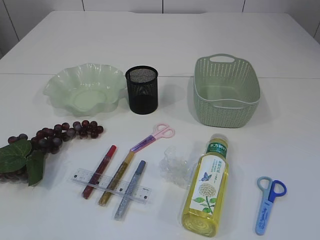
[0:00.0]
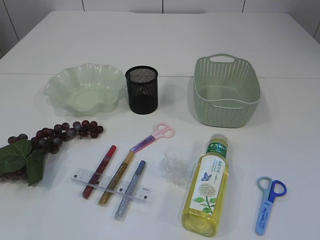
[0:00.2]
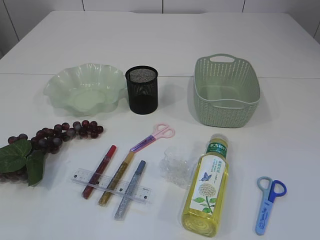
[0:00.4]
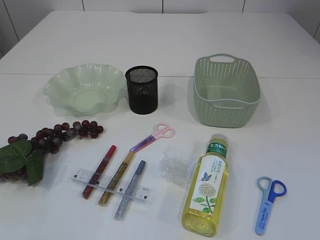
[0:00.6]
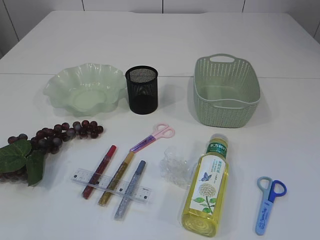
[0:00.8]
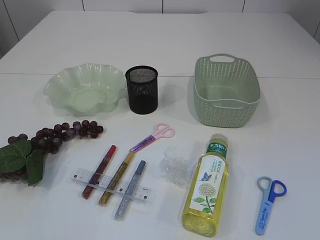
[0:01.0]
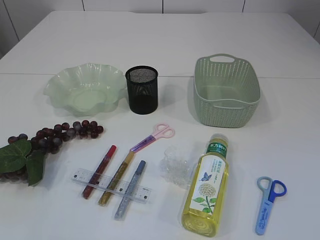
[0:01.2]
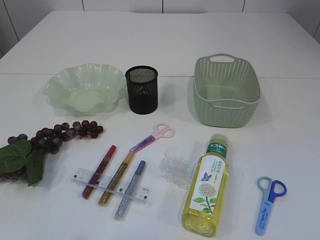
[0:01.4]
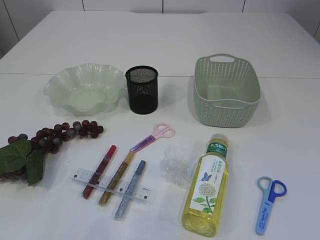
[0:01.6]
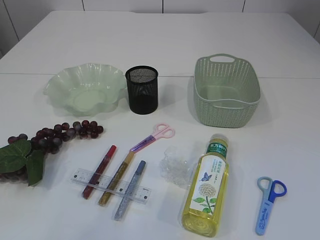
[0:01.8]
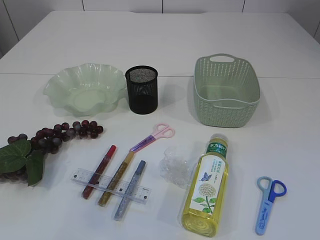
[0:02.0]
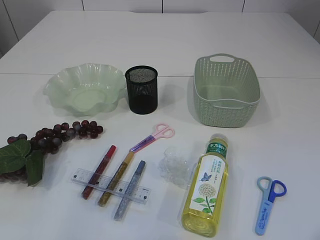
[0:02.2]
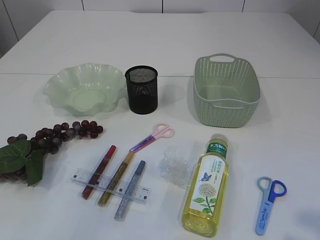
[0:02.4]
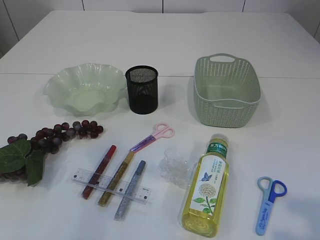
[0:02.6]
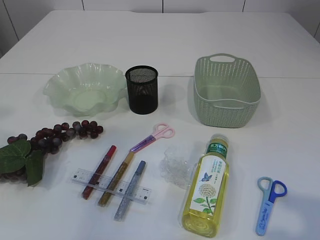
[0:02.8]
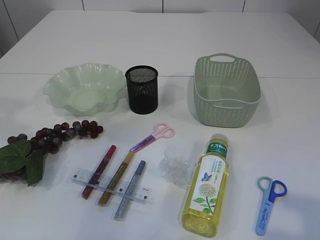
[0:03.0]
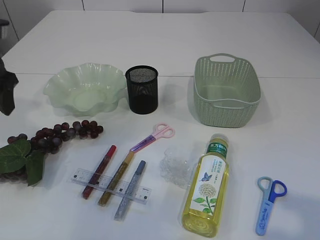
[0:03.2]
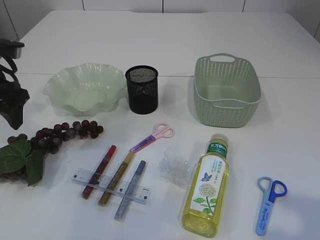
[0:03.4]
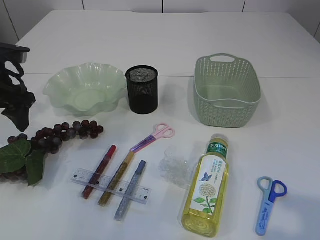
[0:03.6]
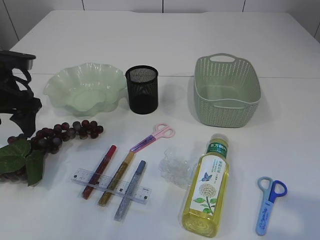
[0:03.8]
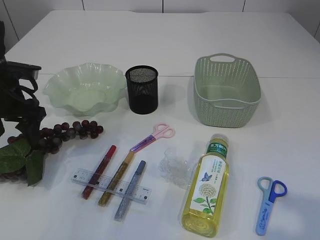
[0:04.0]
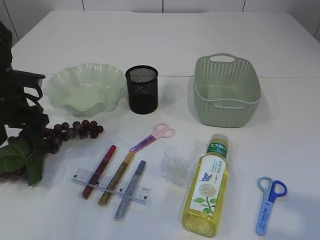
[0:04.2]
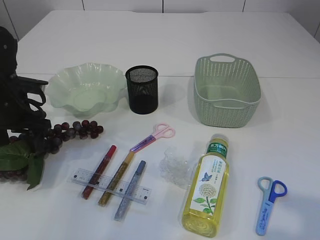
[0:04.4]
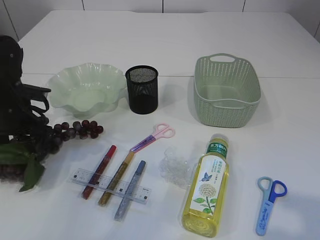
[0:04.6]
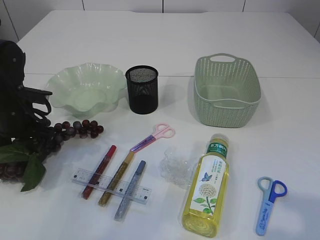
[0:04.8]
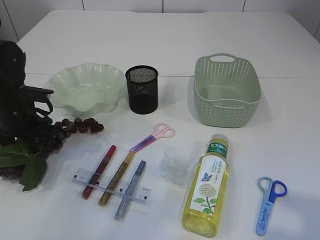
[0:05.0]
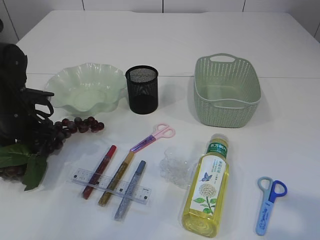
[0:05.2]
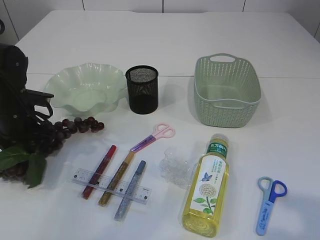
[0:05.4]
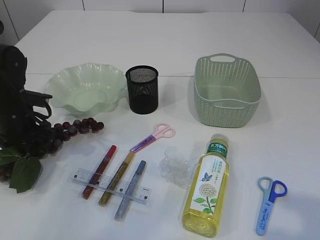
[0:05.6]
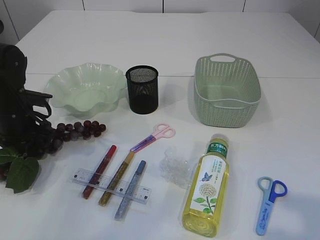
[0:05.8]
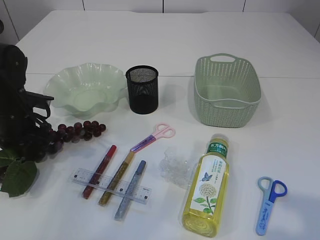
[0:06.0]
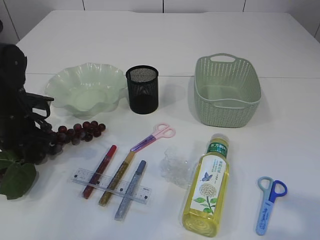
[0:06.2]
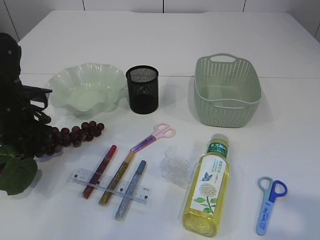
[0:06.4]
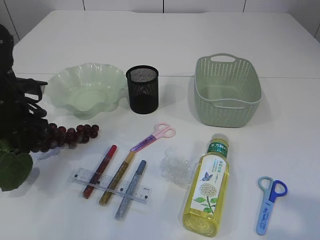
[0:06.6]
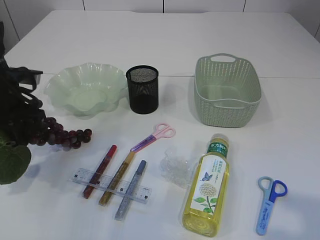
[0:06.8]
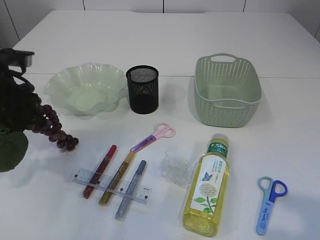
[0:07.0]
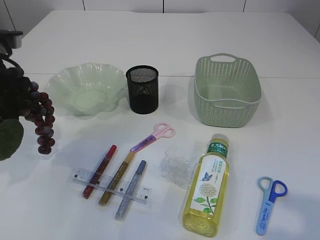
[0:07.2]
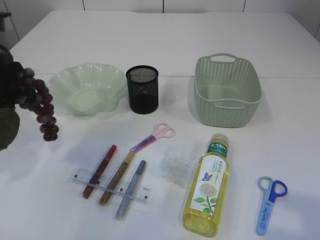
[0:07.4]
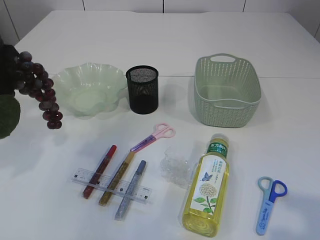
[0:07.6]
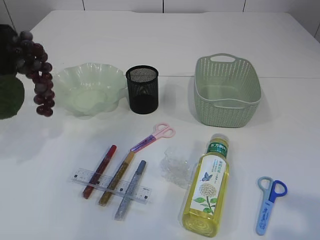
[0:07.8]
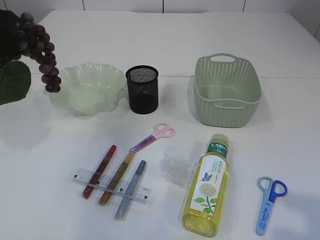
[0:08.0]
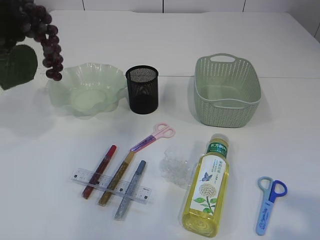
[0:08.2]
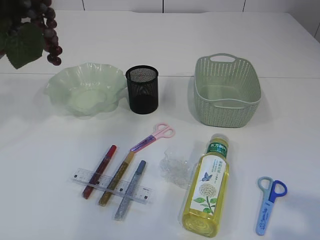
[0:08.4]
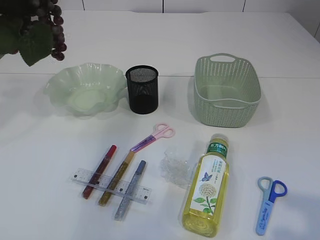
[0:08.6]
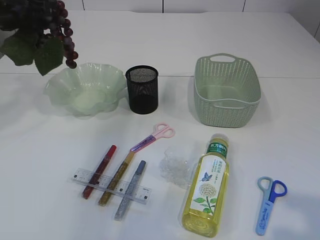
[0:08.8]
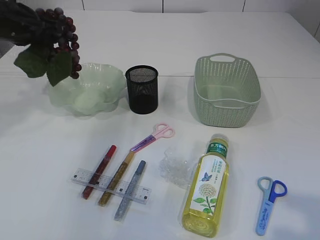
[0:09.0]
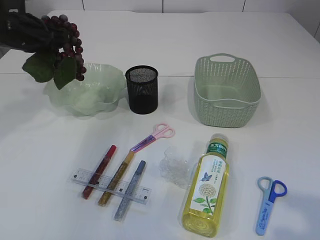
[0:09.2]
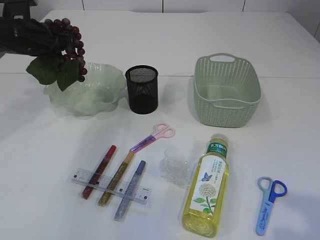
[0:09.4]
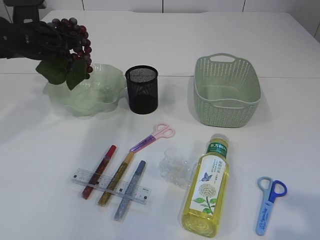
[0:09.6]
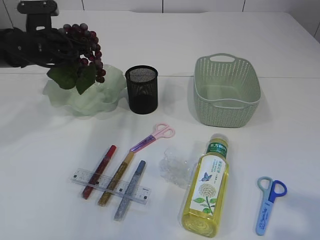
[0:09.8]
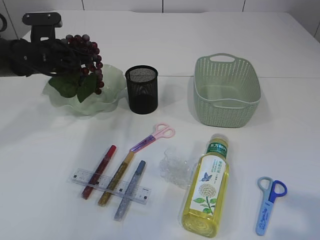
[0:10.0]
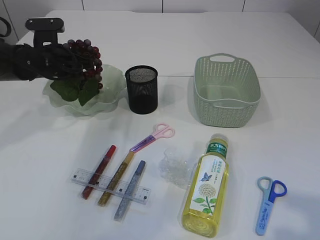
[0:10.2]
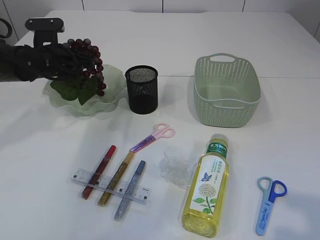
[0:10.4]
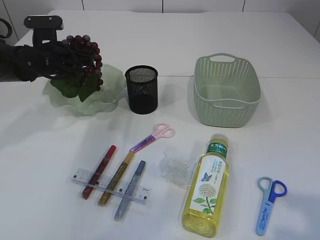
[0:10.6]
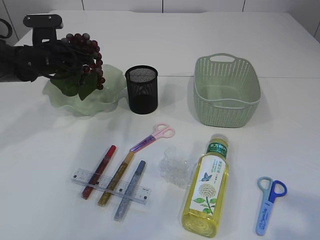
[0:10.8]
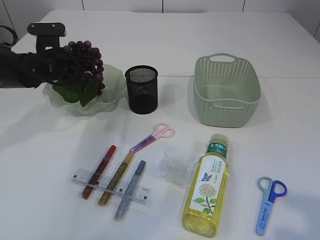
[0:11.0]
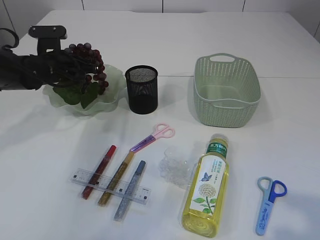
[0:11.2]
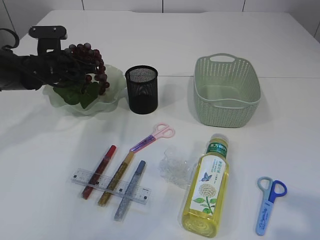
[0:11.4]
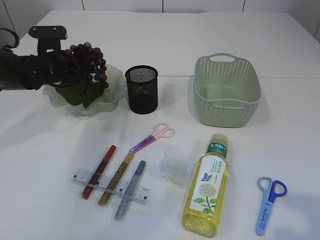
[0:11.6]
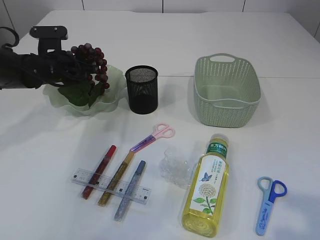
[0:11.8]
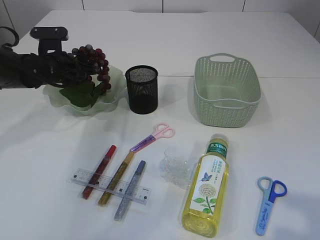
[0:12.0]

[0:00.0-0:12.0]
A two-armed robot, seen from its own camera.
Step, 0:00.0 to 0:07.4: Pick up the grapes.
0:01.6 to 0:03.0: The right gripper travels forward and upward by roughly 10 cm, while the left gripper shifts some 30 cm forward.
0:03.0 to 0:04.4: The left gripper travels downward and forward by roughly 20 cm.
0:04.4 to 0:06.0: The left gripper closes up.
0:06.0 to 0:07.6: The left gripper moves upward, approximately 20 cm.
0:07.6 to 0:09.0: The left gripper shifts some 10 cm forward.
0:09.0 to 0:10.4: The left gripper shifts roughly 10 cm downward.
0:10.4 to 0:12.0: The left gripper opens its fingers.

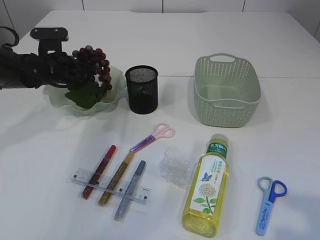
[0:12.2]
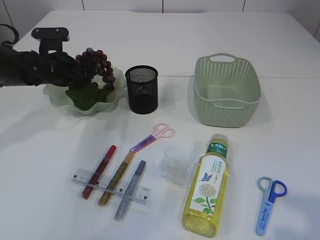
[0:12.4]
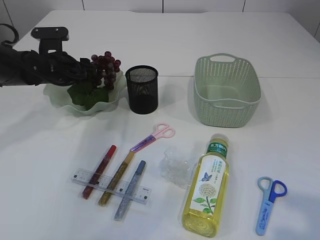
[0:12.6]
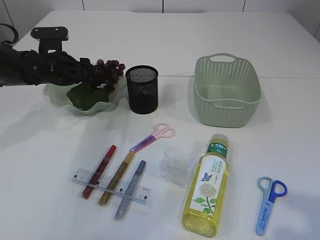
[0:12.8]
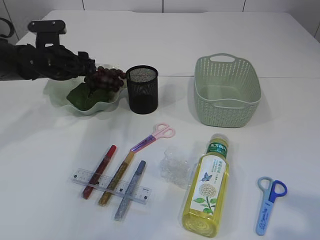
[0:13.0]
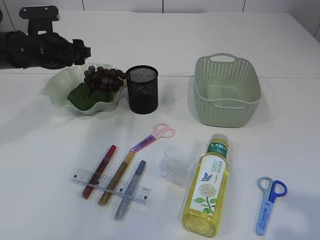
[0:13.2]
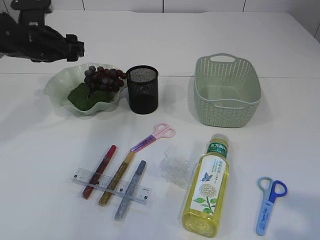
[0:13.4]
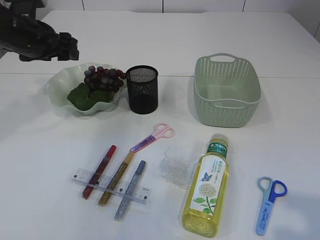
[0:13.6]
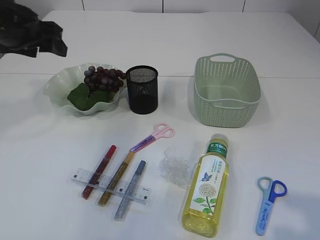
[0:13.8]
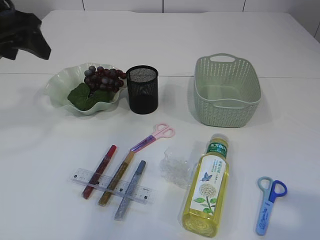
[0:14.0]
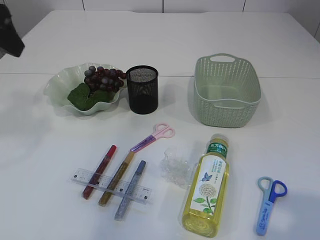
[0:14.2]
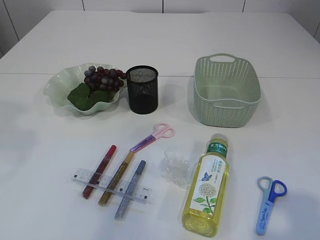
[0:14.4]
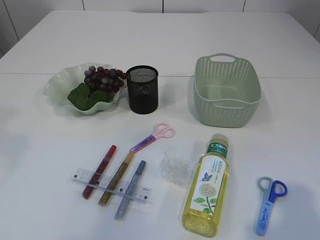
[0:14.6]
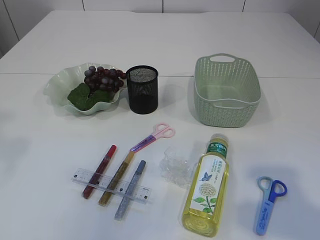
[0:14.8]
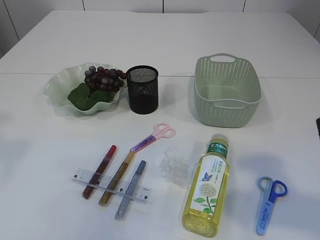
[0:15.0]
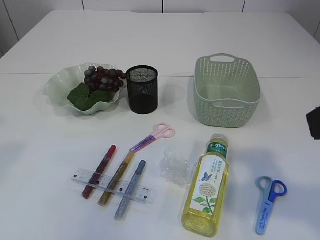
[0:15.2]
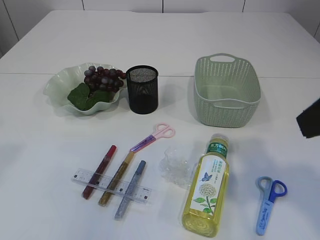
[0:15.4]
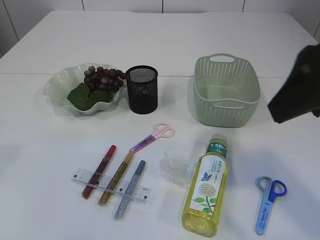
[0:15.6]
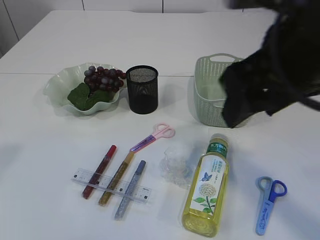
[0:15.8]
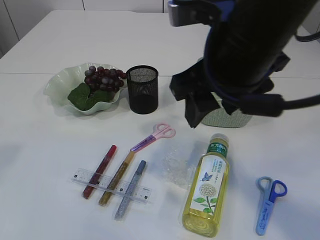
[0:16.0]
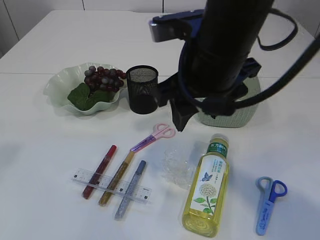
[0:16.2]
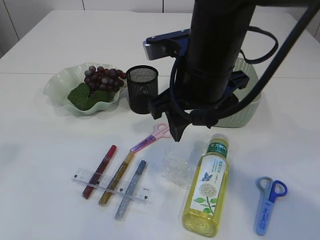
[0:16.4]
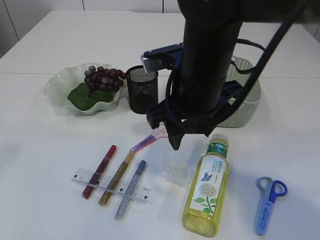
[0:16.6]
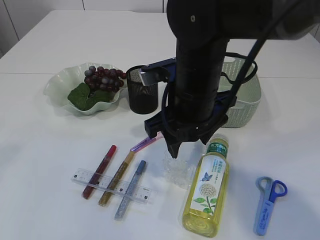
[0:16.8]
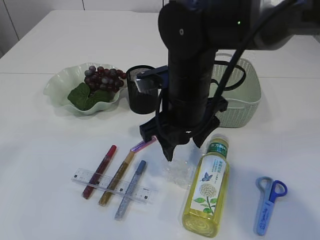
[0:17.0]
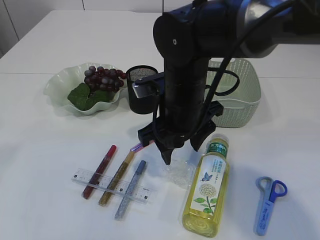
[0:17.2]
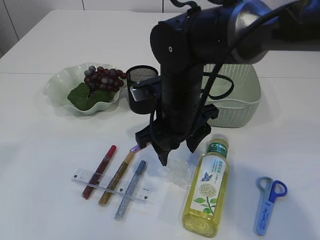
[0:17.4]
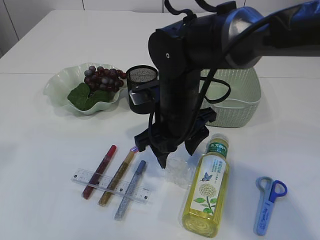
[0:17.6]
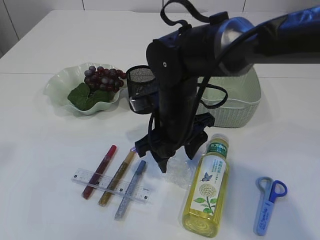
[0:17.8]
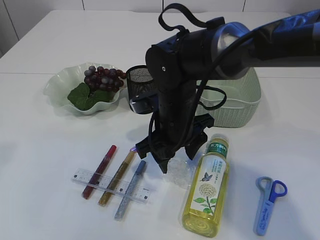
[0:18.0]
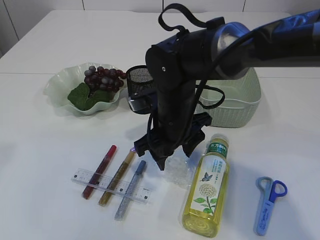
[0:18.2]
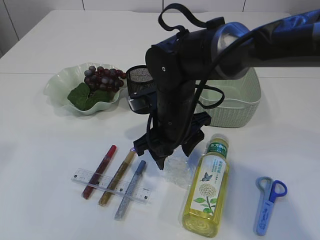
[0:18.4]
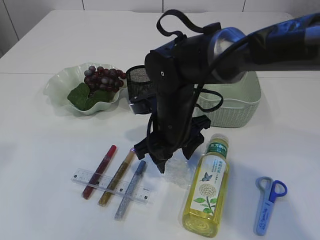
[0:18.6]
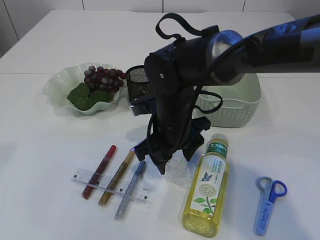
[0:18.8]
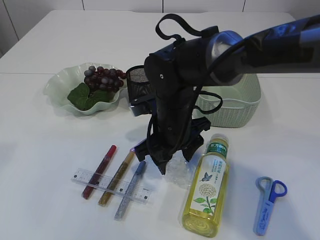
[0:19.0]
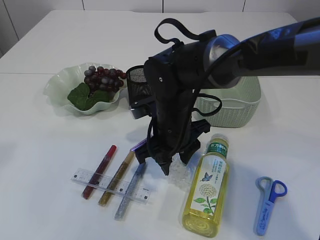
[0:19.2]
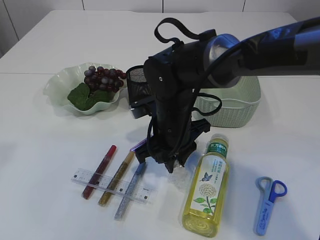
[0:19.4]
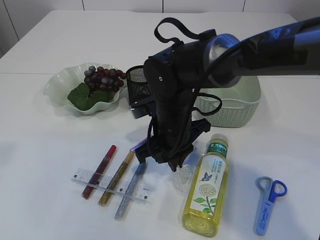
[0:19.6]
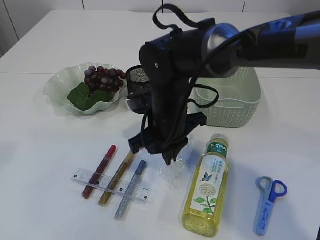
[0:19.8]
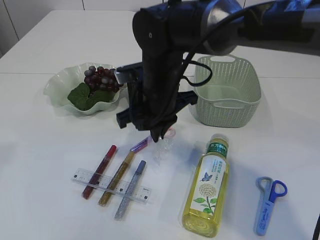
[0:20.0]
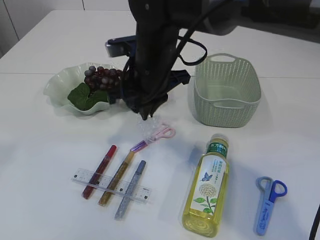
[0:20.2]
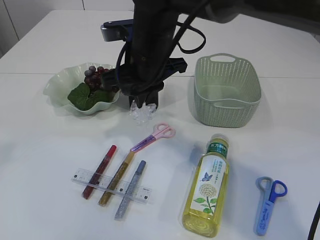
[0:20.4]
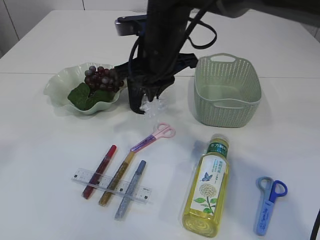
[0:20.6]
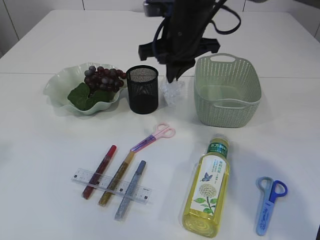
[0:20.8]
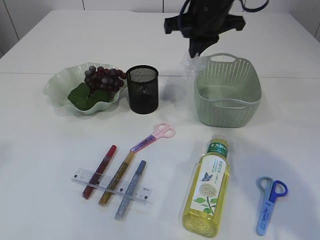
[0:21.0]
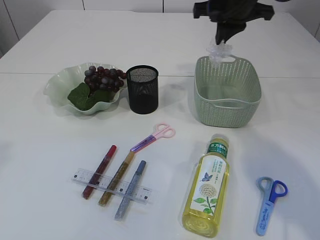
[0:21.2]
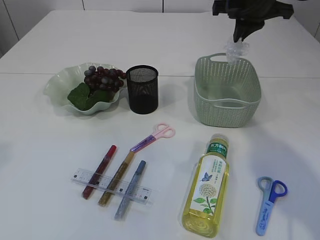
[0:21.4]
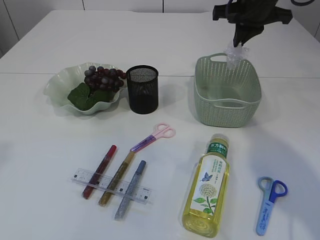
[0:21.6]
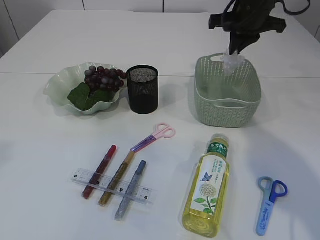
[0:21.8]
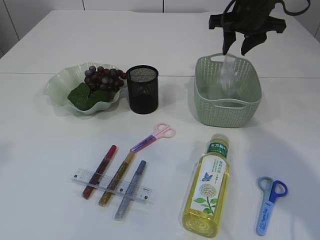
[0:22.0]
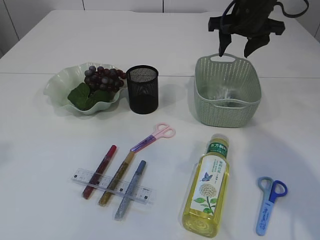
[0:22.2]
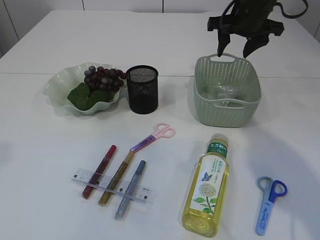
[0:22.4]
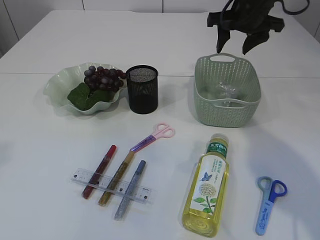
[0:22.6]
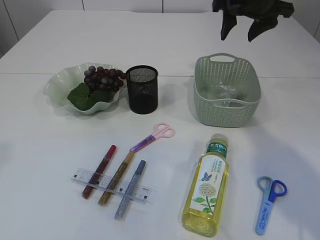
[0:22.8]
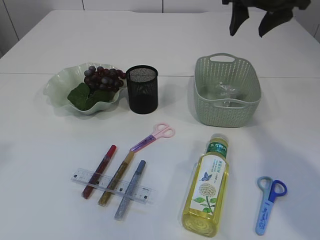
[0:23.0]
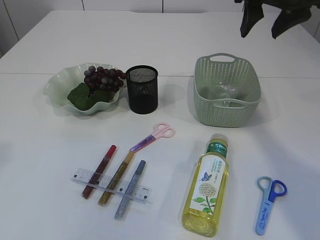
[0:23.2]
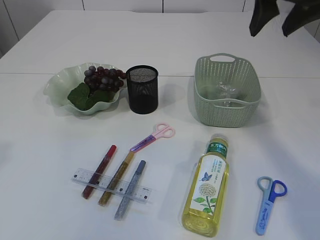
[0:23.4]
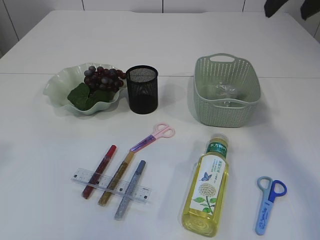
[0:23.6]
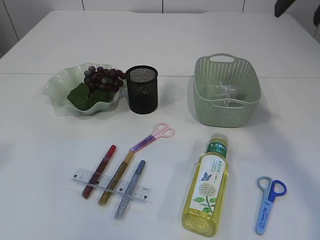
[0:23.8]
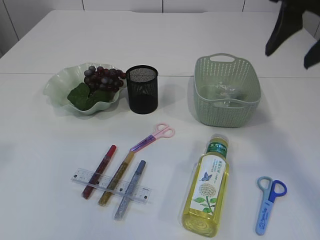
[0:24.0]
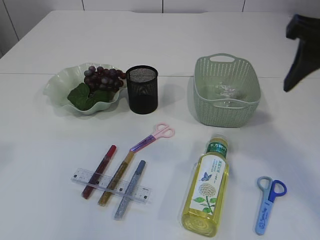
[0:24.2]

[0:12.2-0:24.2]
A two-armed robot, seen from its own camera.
Step, 0:13.8 to 0:20.0: Pick up the plastic.
Step, 0:20.2 to 0:22.8: Place the plastic in the basket.
0:12.2 to 0:13.8: The left gripper is displaced upward and backward by roughly 15 cm.
0:13.8 to 0:15.2: The left gripper heads backward and upward, covering roughly 25 cm; the right gripper moves forward, some 10 cm.
0:15.2 to 0:16.6: The right gripper shifts approximately 25 cm to the left, forward and downward.
0:16.6 to 0:18.2: The right gripper shifts roughly 10 cm downward.
0:18.2 to 0:19.8: The right gripper closes its fingers.
0:19.8 to 0:21.2: The right gripper shifts roughly 25 cm upward, to the right and forward.
0:21.2 to 0:22.6: The right gripper opens.
0:22.6 to 0:24.2: The right gripper is displaced backward by some 20 cm.
